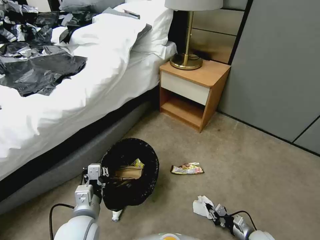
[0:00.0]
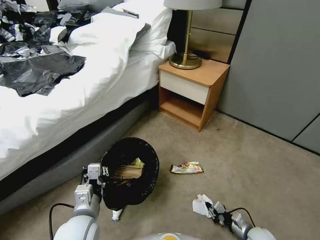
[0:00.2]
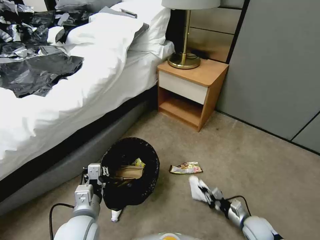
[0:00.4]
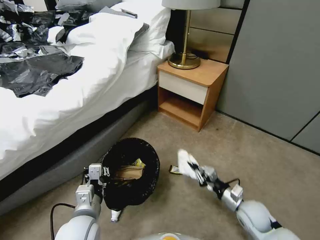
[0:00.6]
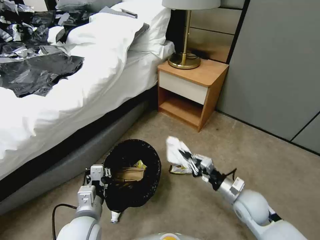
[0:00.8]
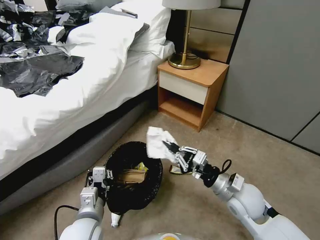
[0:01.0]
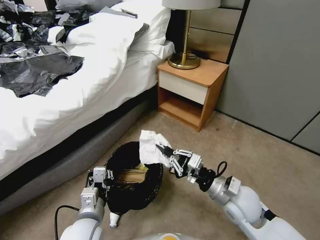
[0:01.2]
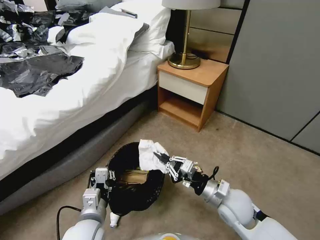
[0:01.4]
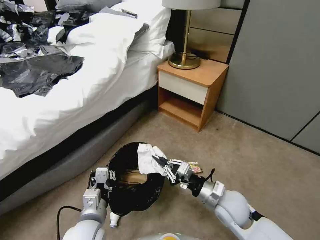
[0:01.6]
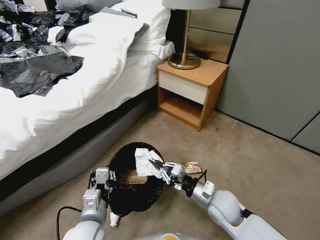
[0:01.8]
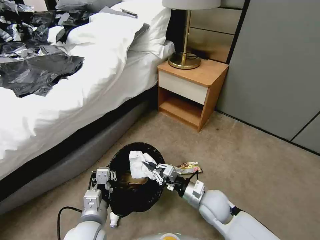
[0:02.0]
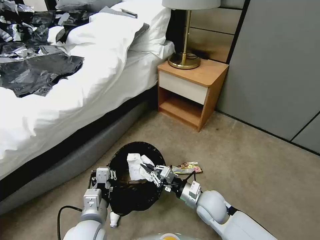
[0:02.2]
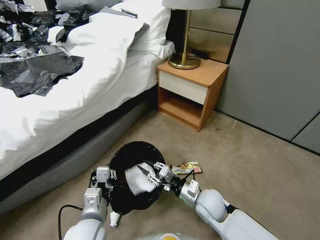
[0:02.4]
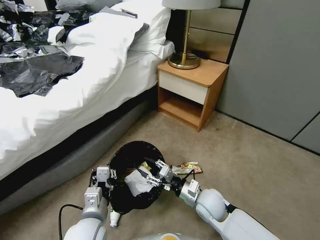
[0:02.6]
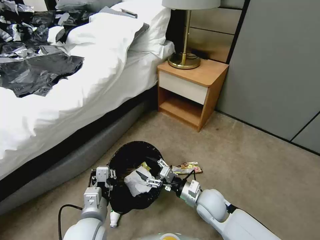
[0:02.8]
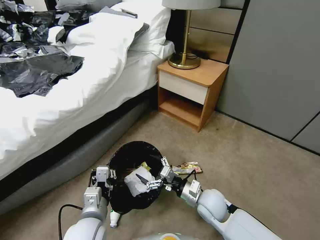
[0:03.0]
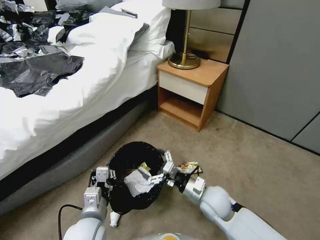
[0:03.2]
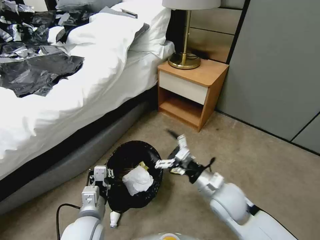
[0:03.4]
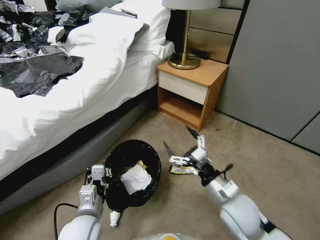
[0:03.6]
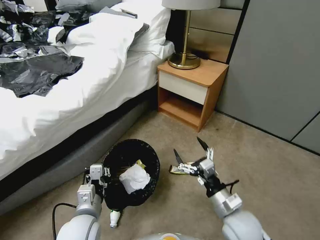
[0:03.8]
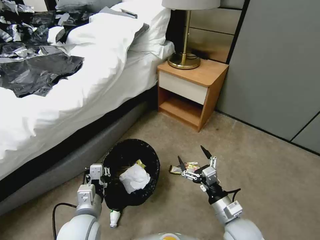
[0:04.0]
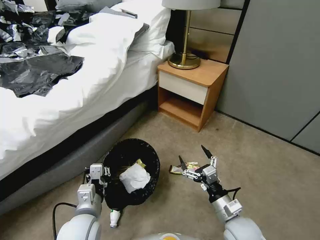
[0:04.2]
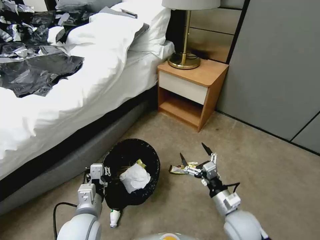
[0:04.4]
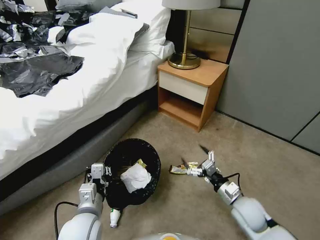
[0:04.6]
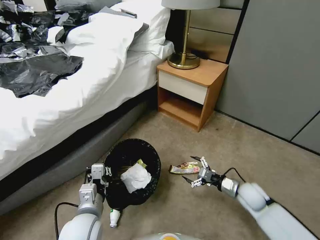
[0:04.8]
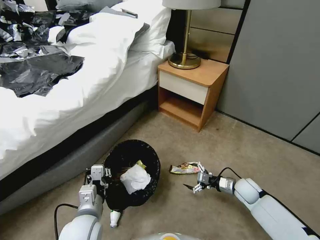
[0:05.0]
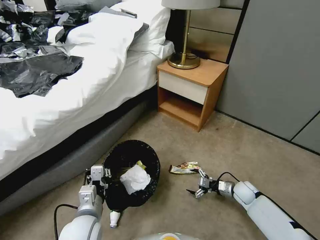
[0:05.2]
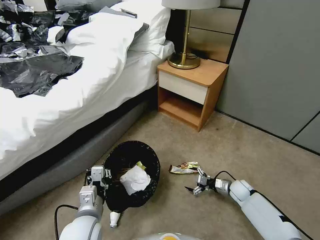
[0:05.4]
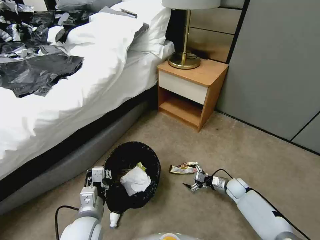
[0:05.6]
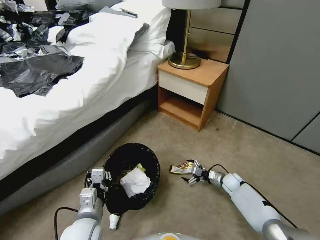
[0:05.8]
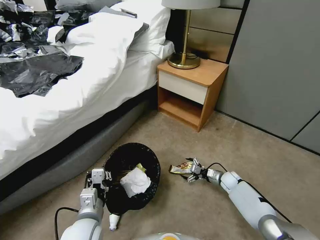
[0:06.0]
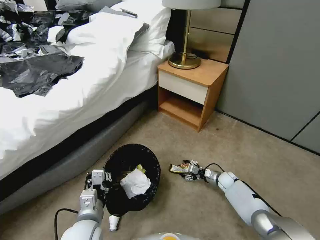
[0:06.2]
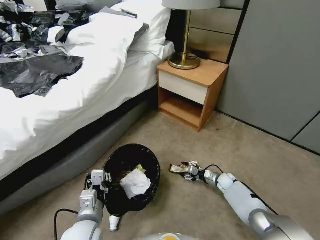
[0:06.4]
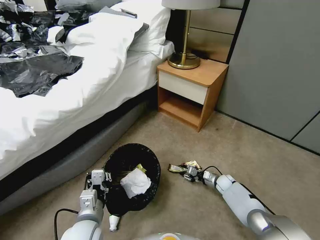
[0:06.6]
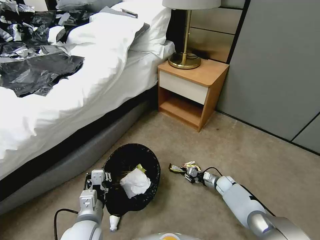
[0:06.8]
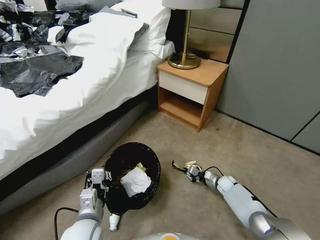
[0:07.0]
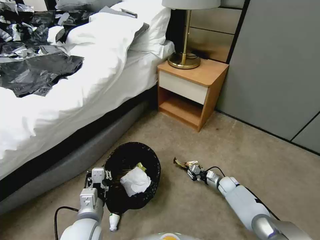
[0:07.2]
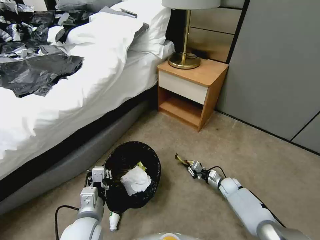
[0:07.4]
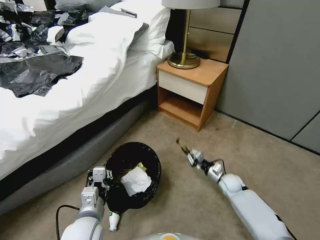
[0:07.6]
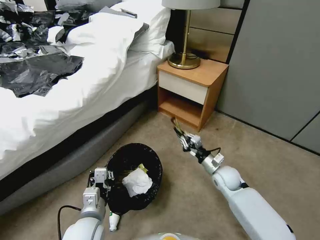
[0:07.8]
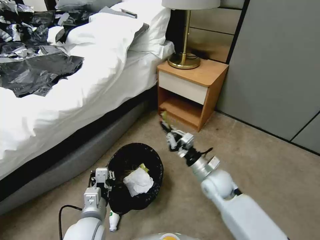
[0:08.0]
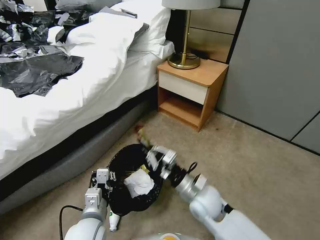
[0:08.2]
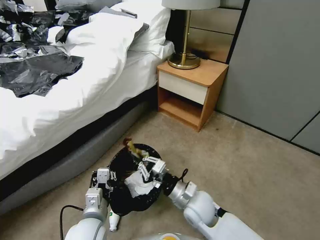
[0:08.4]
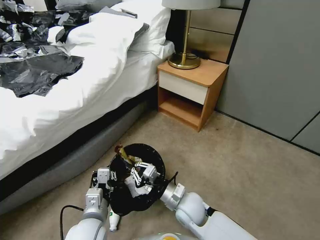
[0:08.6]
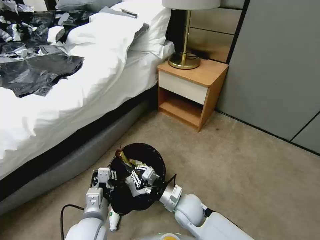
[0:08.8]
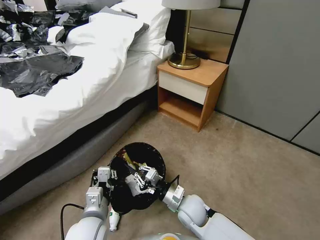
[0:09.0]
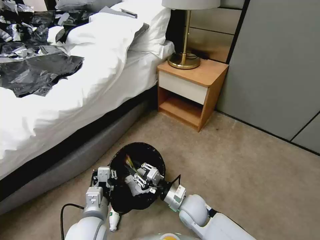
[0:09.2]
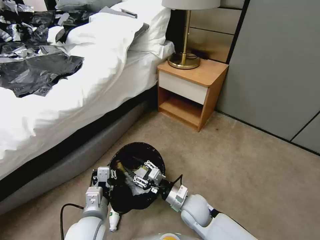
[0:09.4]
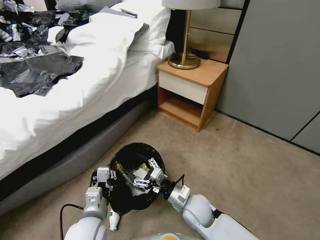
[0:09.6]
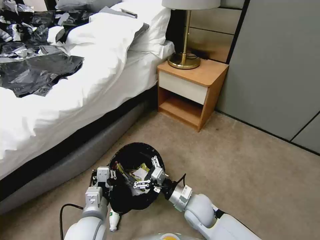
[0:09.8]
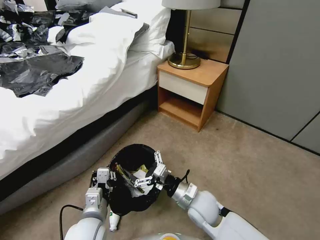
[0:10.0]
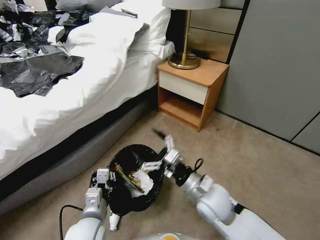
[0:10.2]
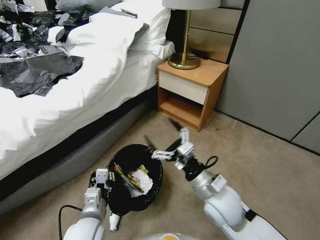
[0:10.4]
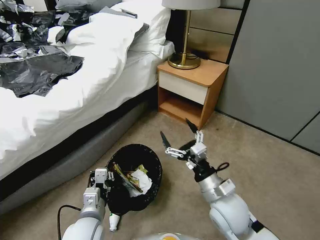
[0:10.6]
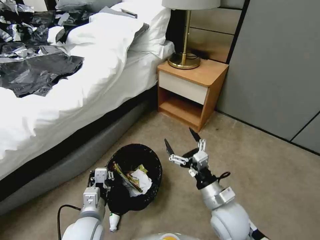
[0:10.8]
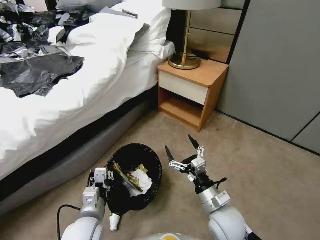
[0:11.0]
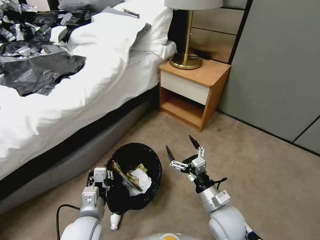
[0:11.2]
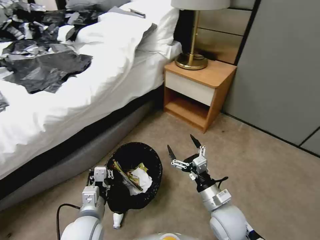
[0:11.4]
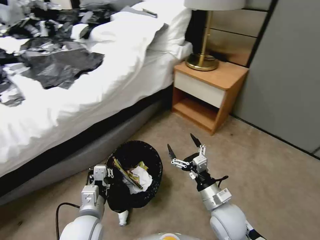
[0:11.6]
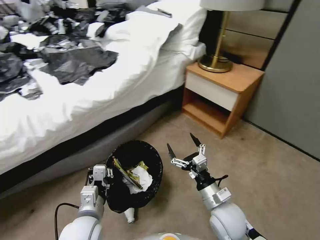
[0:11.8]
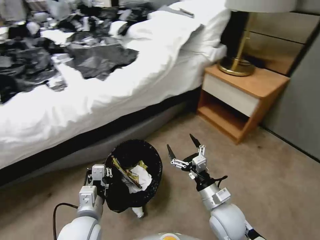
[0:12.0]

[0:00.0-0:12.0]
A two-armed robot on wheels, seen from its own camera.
Task of the whole recording: Pick up the trash bin, then pick up the garbage from the floor and place it into the trash bin.
0:00.0 to 0:01.6: The right gripper travels upward and to the left by roughly 30 cm.
0:01.6 to 0:03.0: The right gripper moves about 5 cm, and opens up.
0:03.0 to 0:04.4: The right gripper moves to the right and backward, about 10 cm, and travels upward and back again, approximately 10 cm each way.
0:04.4 to 0:06.0: The right gripper shifts about 30 cm forward, downward and to the right.
0:06.0 to 0:07.6: The right gripper changes place by approximately 5 cm, and closes.
0:07.6 to 0:09.0: The right gripper is displaced to the left, backward and upward by some 25 cm.
0:09.0 to 0:10.4: The right gripper heads upward and to the right, covering roughly 15 cm, and opens up.
0:10.4 to 0:12.0: The right gripper heads downward, covering roughly 10 cm.

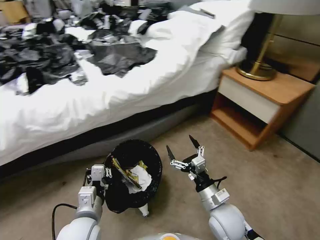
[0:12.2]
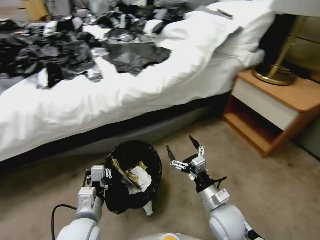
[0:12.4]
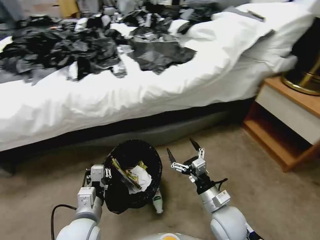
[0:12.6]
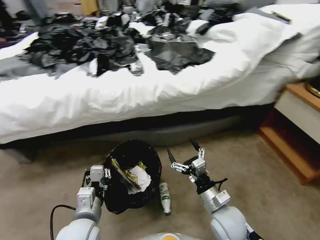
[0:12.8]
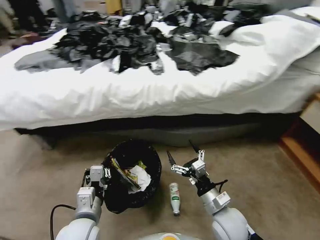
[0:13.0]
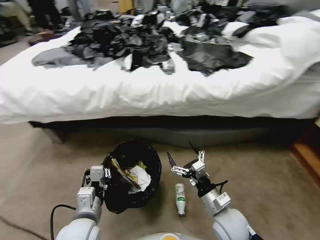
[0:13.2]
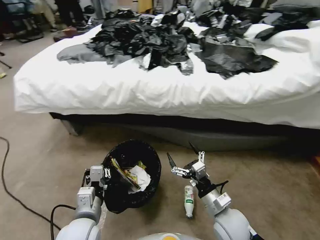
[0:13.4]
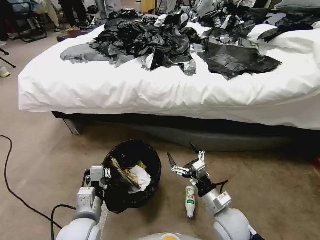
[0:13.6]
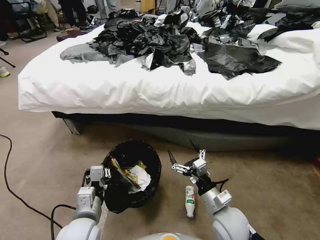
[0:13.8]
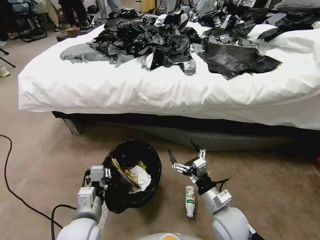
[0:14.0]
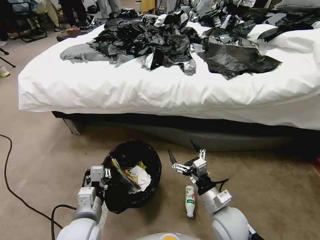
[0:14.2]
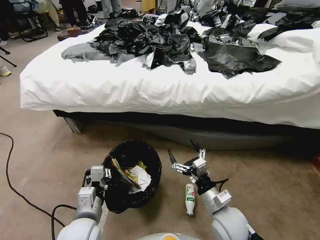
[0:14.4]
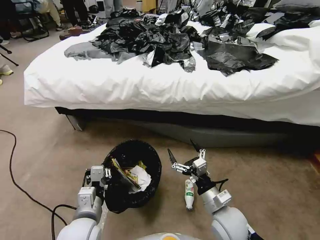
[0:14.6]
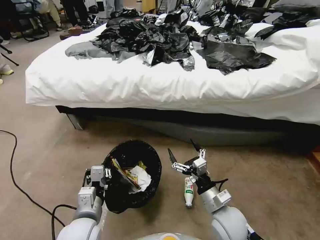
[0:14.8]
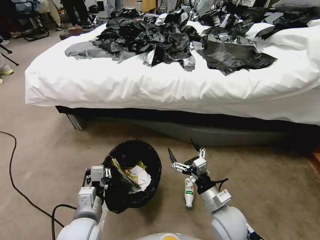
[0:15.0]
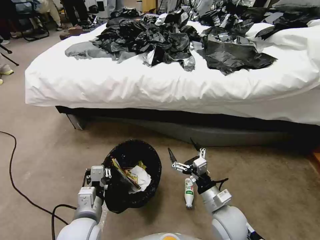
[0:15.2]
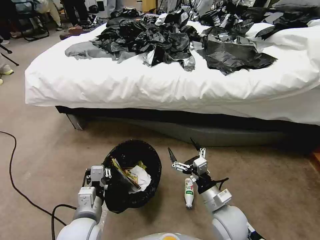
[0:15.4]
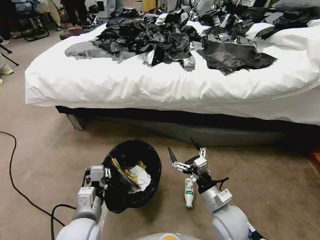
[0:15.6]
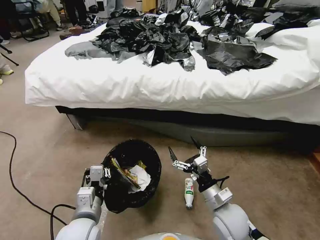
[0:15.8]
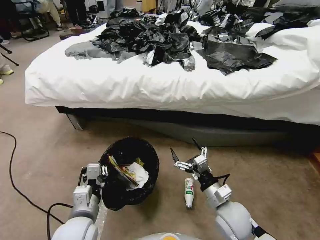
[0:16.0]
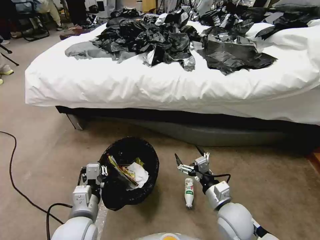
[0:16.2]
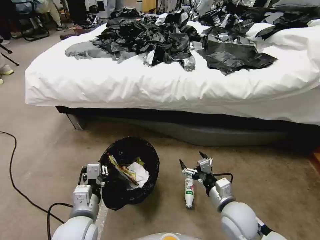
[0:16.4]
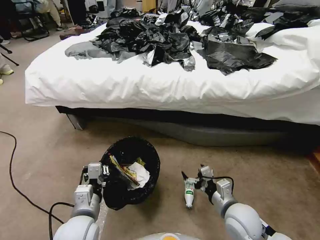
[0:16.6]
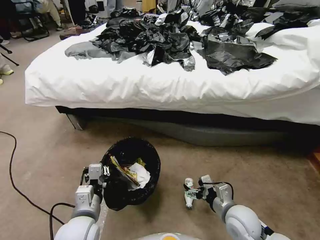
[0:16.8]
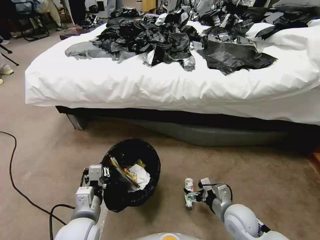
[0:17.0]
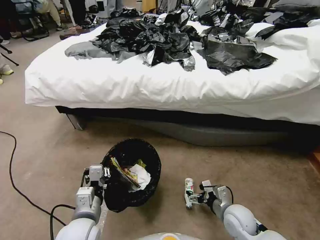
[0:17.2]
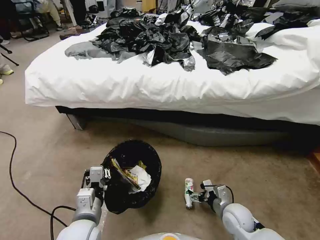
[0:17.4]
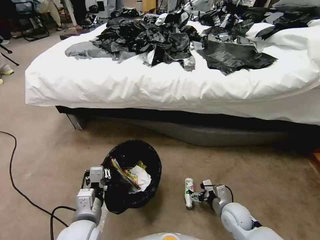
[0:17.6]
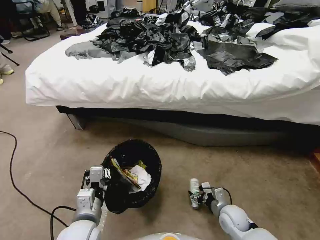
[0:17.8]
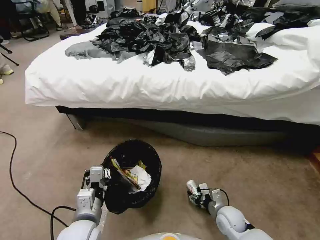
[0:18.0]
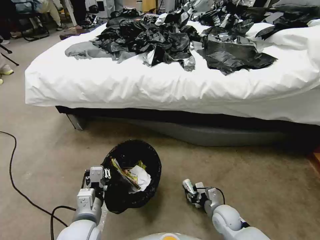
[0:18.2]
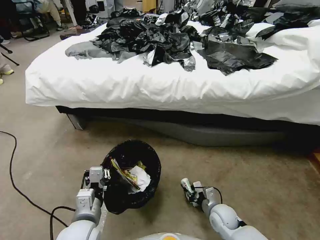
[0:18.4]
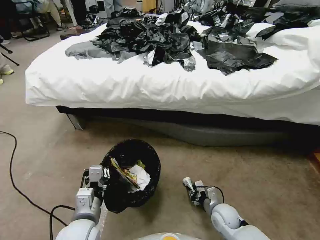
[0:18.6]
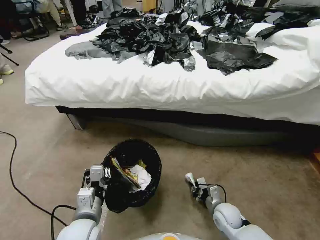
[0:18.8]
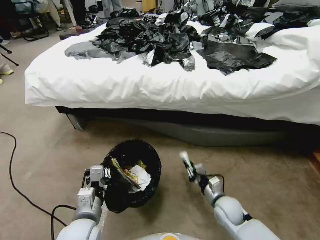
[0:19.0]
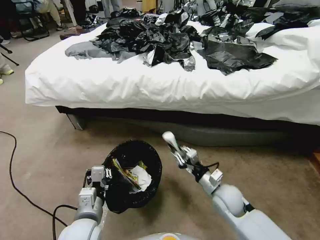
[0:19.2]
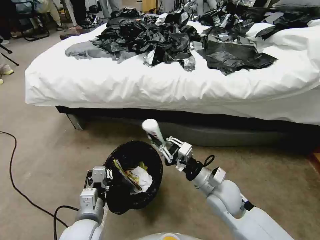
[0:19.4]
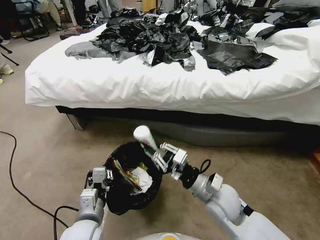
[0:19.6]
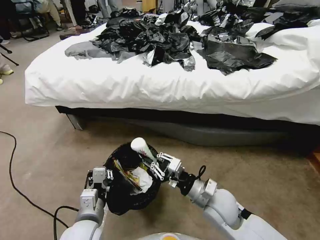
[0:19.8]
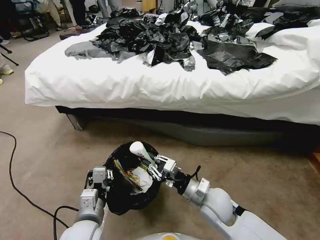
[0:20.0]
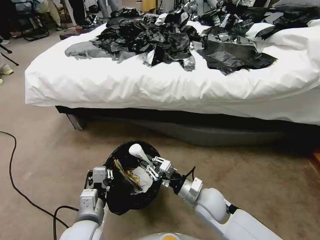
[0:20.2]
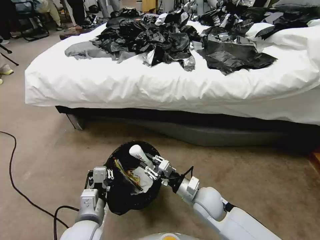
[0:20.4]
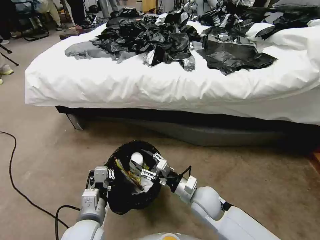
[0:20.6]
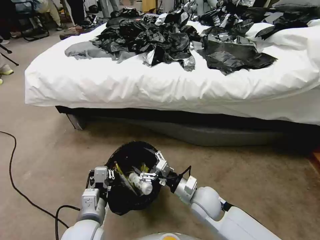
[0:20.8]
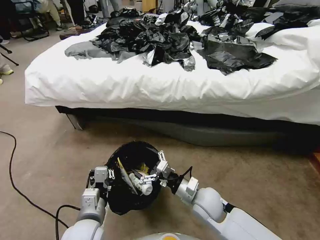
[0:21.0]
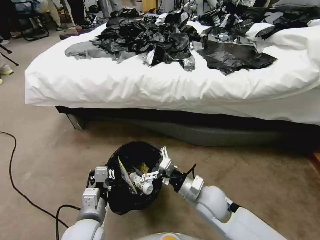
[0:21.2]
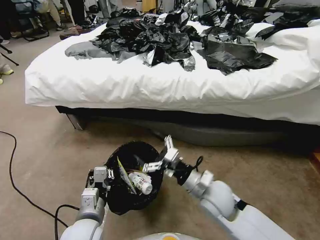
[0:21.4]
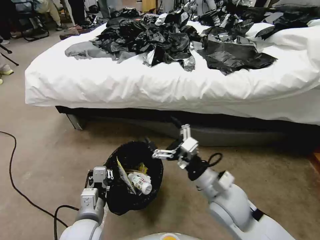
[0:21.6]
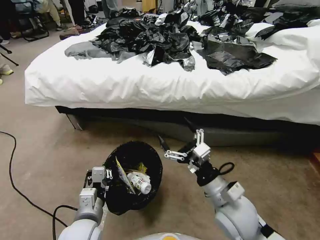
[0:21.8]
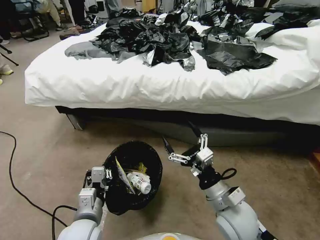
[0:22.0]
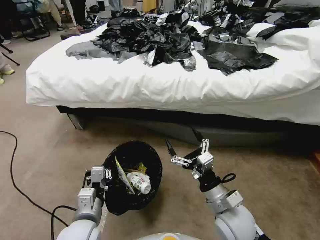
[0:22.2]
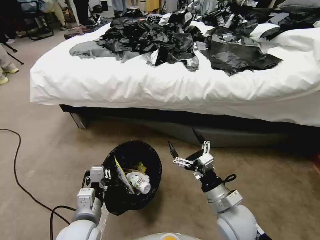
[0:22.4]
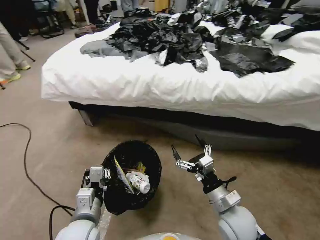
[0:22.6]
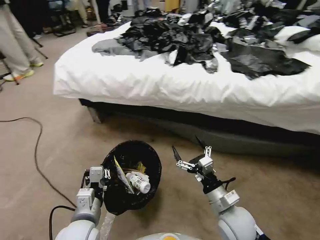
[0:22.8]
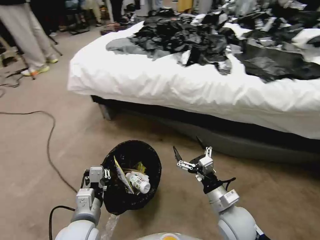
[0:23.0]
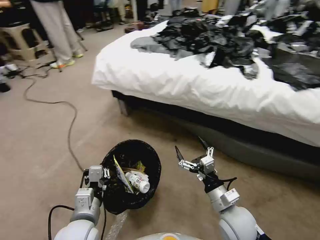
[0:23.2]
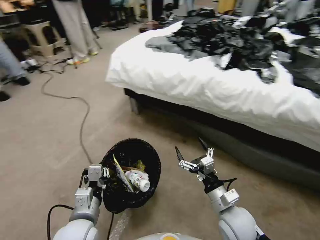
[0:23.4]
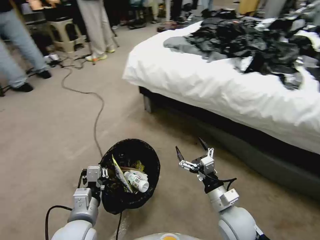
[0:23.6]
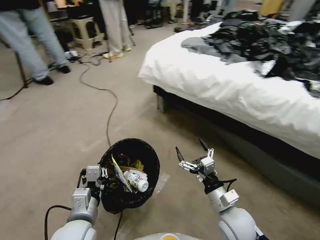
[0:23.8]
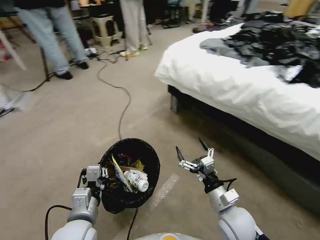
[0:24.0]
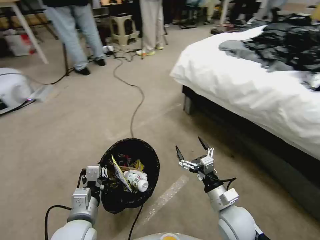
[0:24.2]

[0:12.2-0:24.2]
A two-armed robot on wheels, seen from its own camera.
Task of the whole recording: Pick up the trash bin, then pick up the garbage from the floor and place it into the trash bin.
0:16.6 to 0:18.2: The right gripper is displaced downward by about 15 cm, and closes up.
0:18.2 to 0:19.8: The right gripper moves upward, about 20 cm.
0:19.8 to 0:21.2: The right gripper opens.
0:21.2 to 0:22.6: The right gripper shifts about 10 cm to the right and backward, and moves approximately 10 cm upward and comes back.
